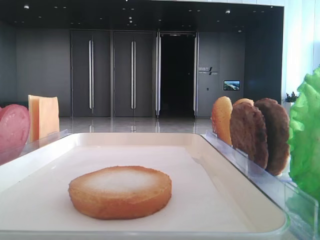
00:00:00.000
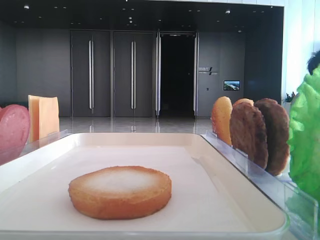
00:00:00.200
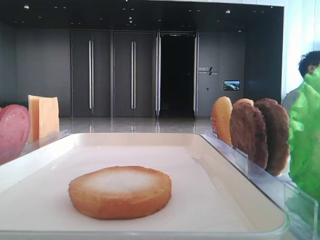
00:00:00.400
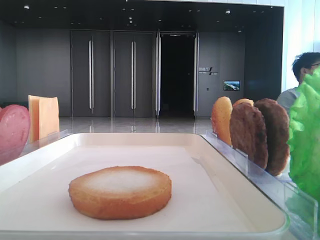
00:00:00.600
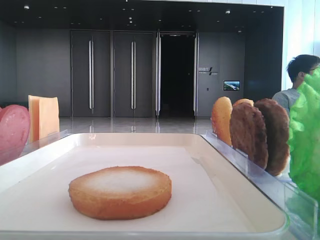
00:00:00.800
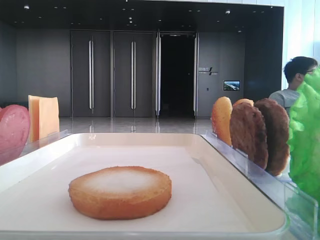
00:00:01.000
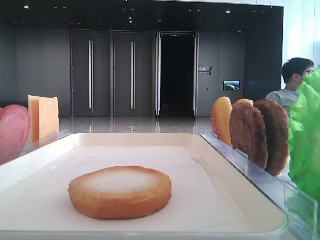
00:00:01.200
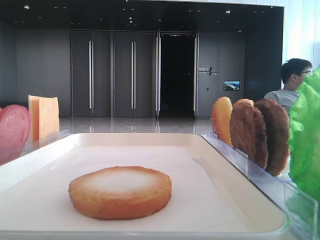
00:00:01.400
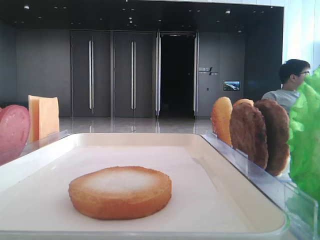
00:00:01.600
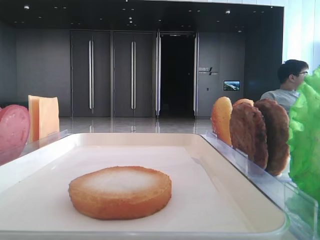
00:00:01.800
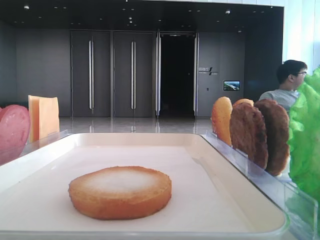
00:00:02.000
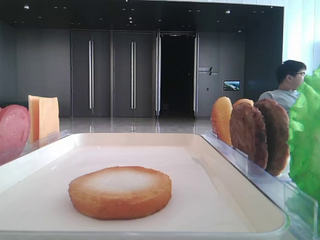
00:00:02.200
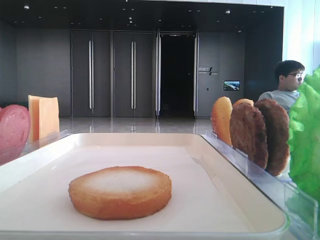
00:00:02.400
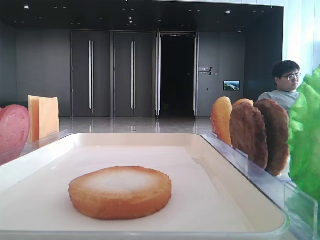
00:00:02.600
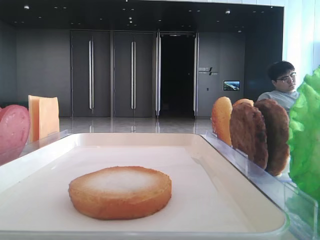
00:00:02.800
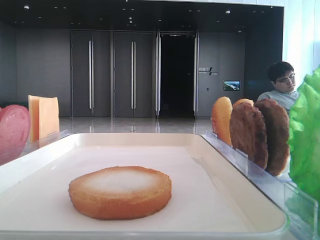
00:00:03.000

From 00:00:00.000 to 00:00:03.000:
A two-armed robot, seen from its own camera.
From 00:00:01.600 to 00:00:03.000: Both grippers stay put.

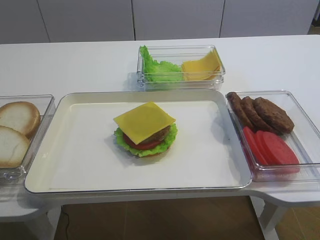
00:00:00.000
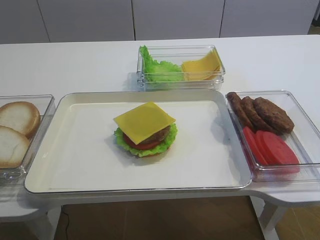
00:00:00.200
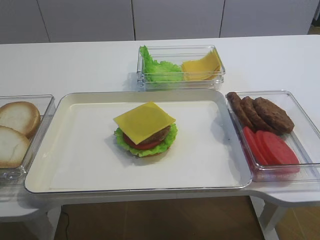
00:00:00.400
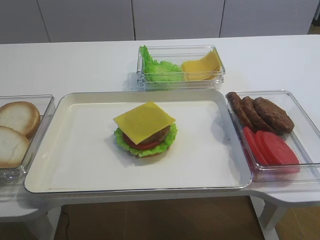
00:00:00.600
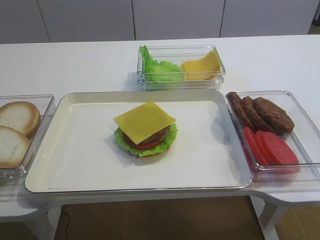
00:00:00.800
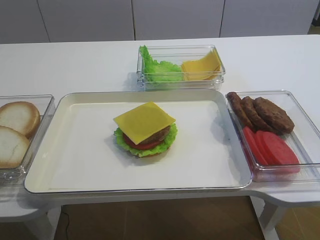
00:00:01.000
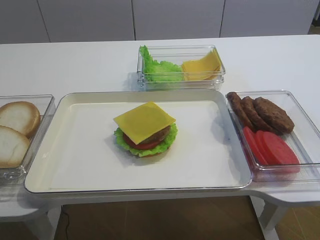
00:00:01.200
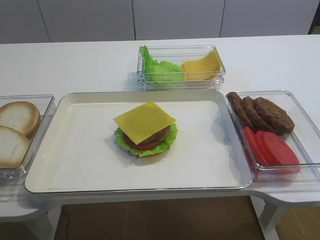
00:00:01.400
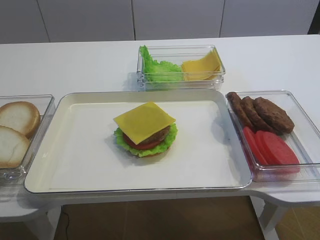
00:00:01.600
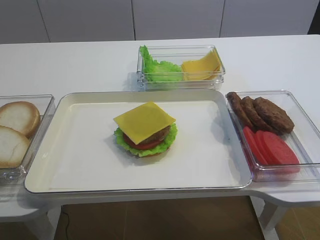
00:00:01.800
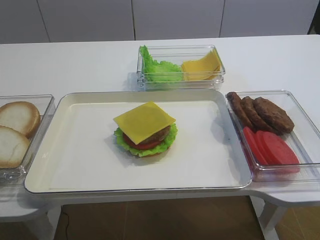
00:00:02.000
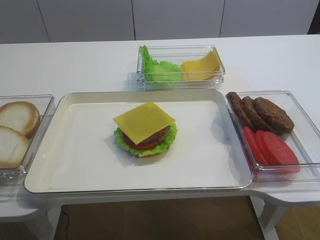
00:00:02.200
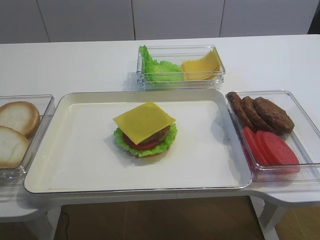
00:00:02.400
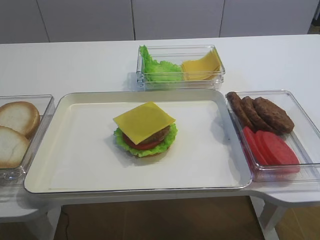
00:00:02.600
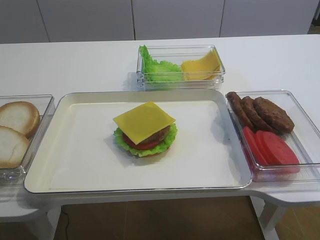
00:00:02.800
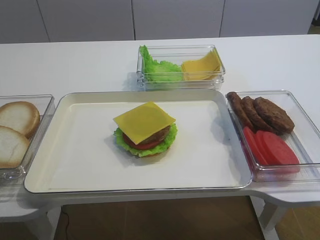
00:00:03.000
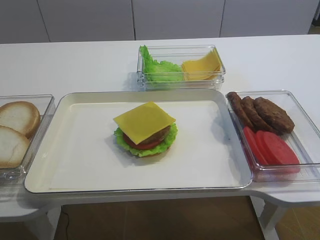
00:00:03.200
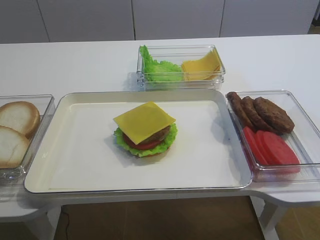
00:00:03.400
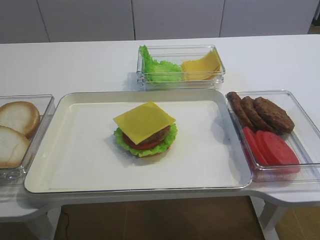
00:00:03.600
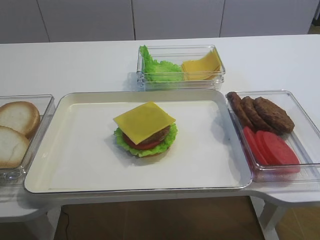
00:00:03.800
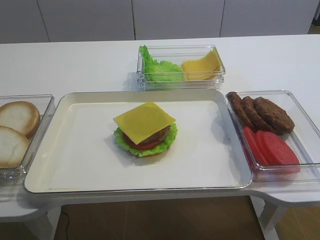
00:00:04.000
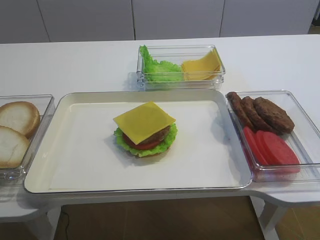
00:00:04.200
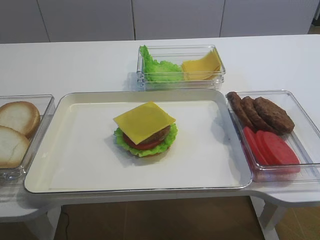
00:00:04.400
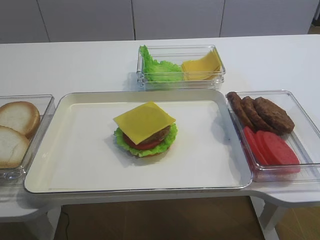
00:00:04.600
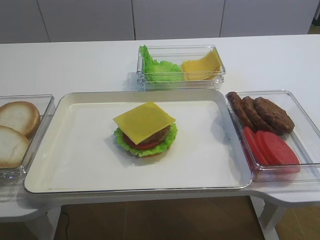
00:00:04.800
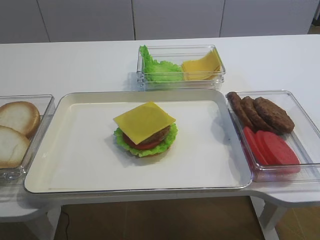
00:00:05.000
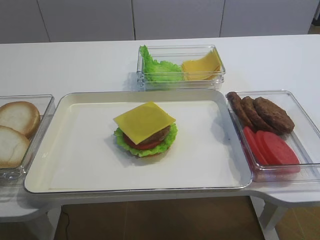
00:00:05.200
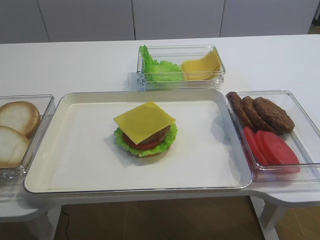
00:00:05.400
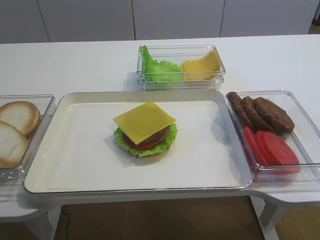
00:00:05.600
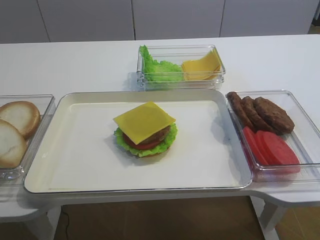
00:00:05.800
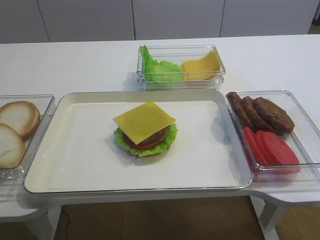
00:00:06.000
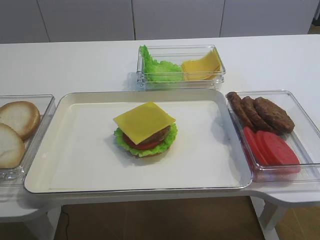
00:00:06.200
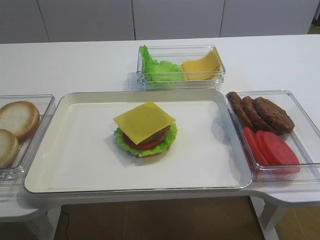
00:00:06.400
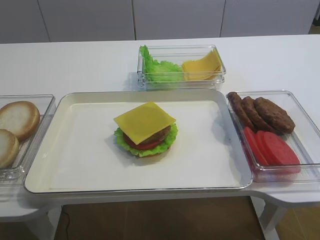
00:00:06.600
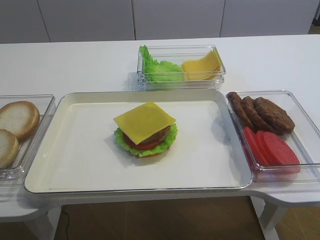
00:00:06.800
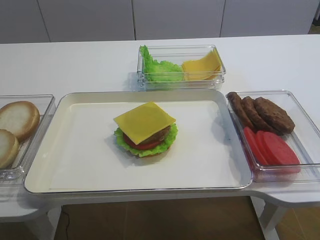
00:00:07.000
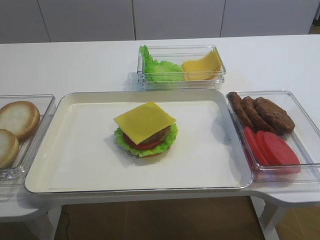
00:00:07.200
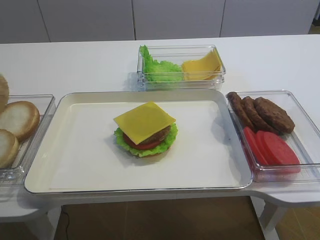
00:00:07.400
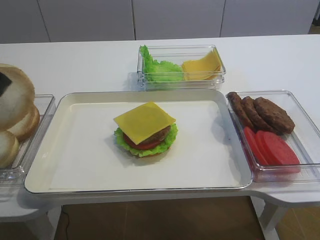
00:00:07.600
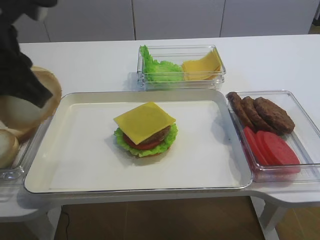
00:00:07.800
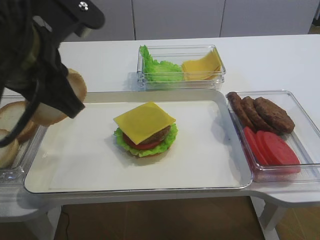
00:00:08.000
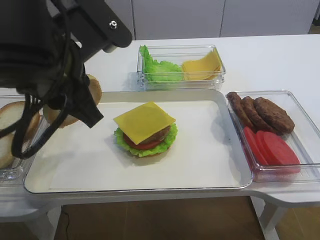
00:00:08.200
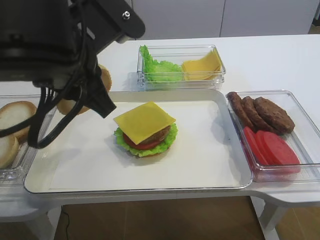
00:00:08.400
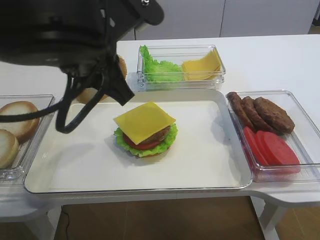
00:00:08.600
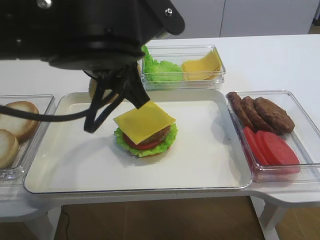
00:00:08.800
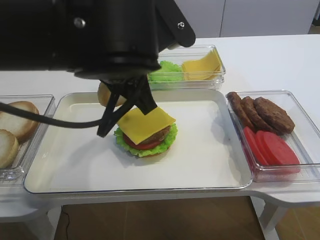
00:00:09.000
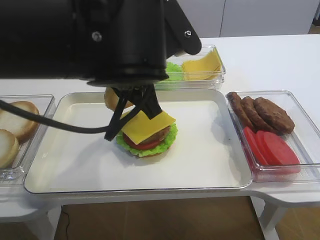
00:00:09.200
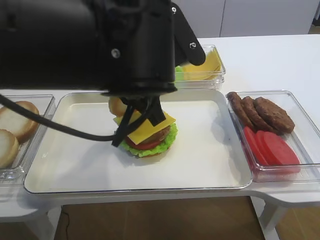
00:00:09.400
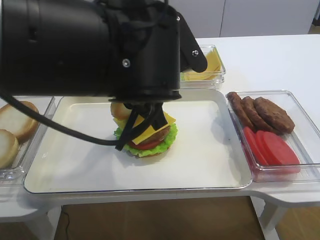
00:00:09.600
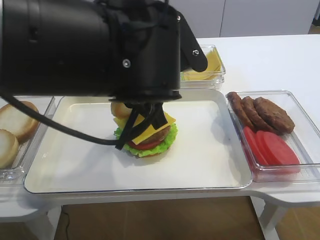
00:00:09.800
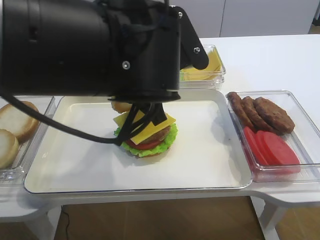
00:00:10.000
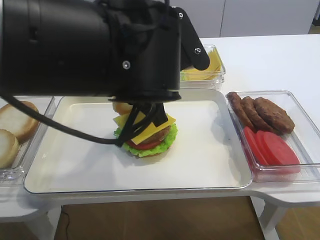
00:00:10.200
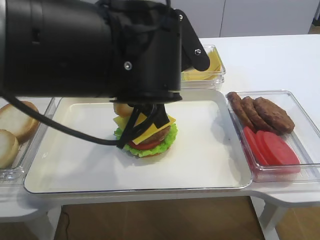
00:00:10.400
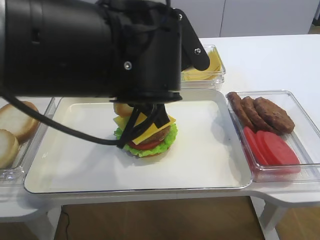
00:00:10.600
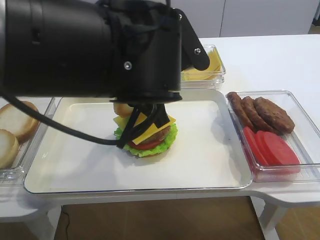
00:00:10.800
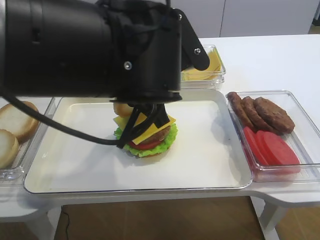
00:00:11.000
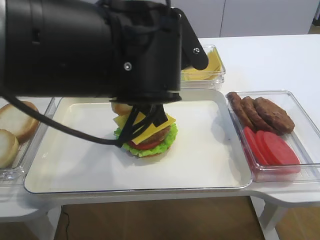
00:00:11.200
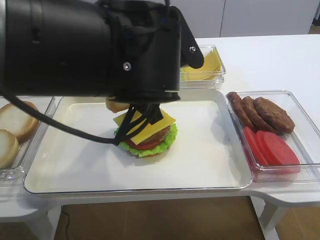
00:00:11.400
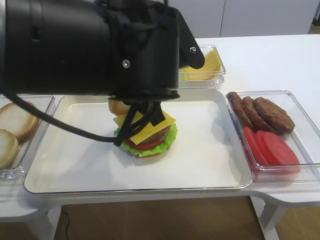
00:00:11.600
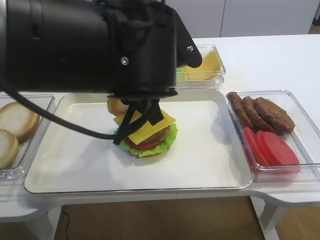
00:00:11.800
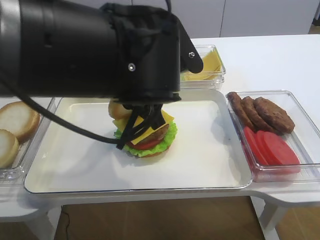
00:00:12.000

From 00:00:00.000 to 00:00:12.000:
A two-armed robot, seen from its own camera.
From 00:00:06.000 to 00:00:07.600: The left gripper is displaced to the right and upward by some 15 cm.
From 00:00:07.600 to 00:00:09.000: The left gripper moves to the right, approximately 15 cm.
From 00:00:09.000 to 00:00:10.400: The grippers stay close to where they were, moving slightly.
From 00:00:10.400 to 00:00:12.000: Both grippers stay put.

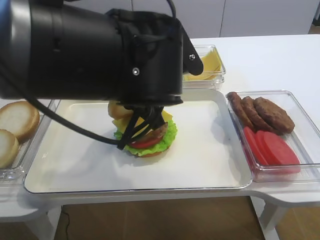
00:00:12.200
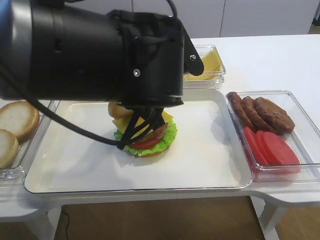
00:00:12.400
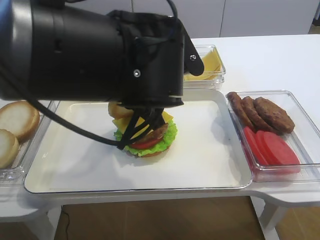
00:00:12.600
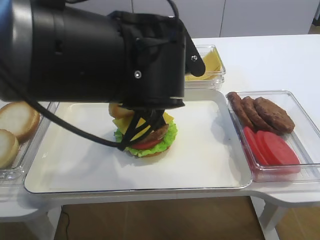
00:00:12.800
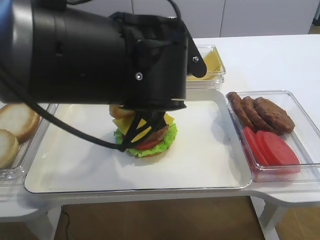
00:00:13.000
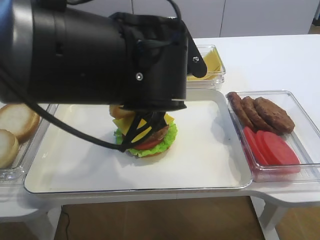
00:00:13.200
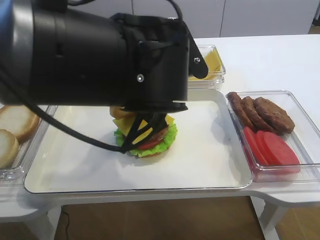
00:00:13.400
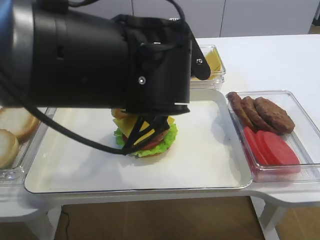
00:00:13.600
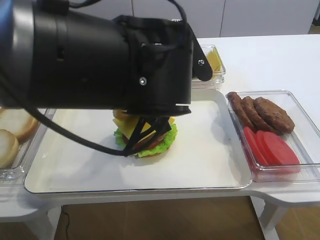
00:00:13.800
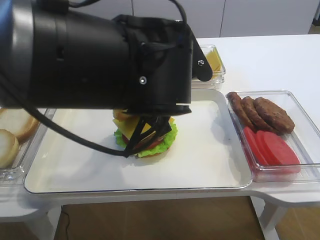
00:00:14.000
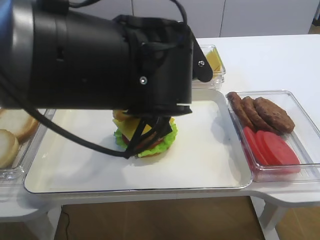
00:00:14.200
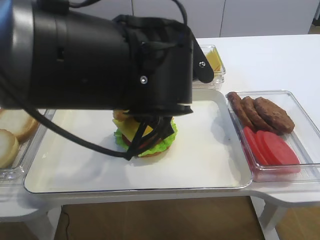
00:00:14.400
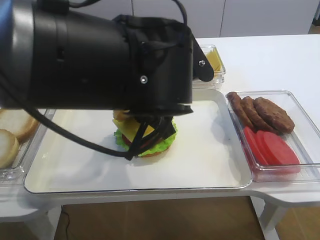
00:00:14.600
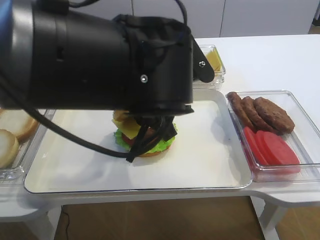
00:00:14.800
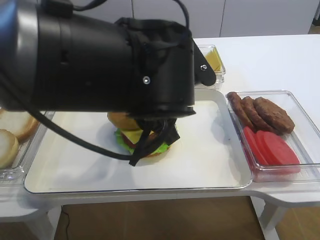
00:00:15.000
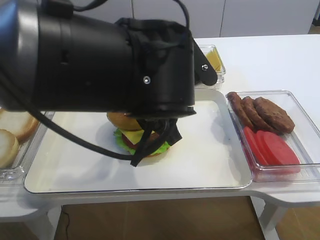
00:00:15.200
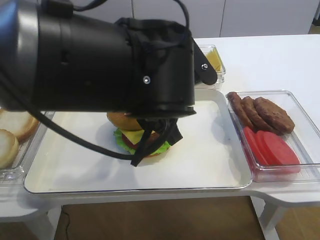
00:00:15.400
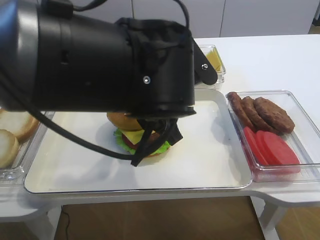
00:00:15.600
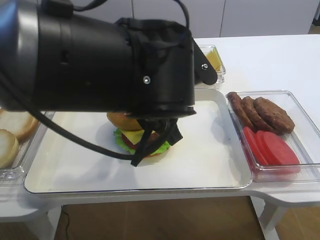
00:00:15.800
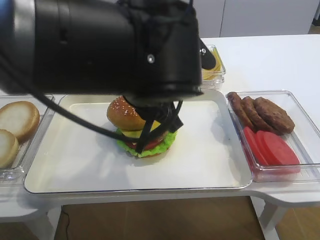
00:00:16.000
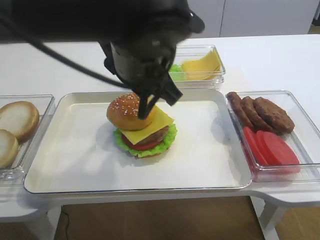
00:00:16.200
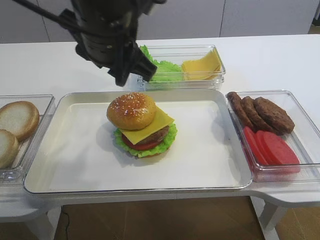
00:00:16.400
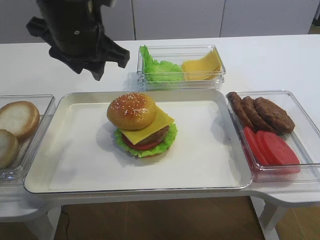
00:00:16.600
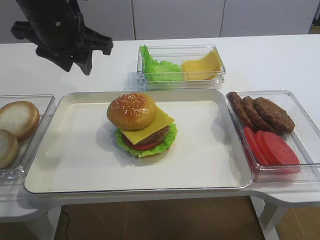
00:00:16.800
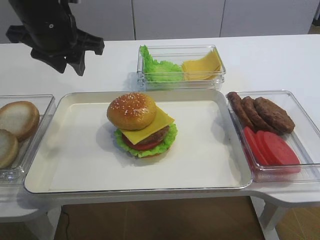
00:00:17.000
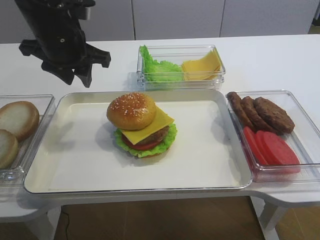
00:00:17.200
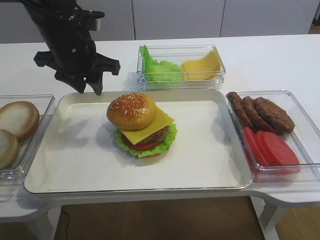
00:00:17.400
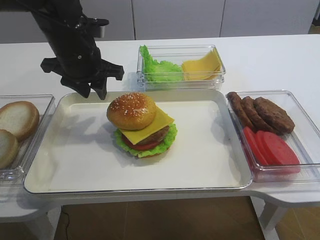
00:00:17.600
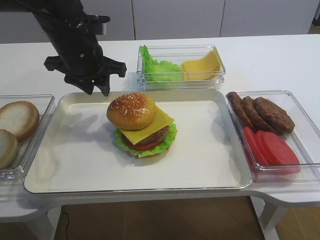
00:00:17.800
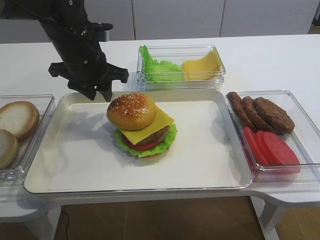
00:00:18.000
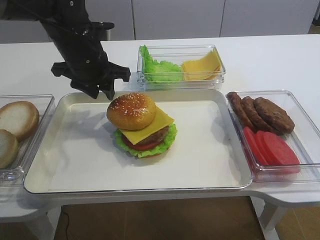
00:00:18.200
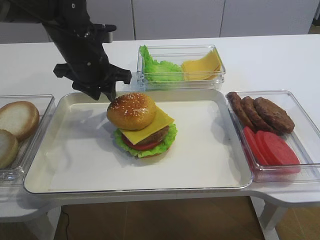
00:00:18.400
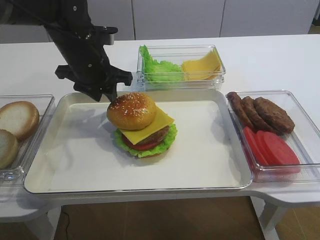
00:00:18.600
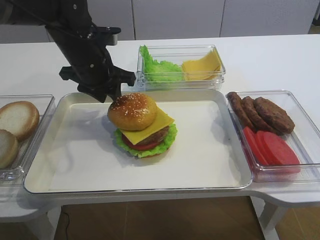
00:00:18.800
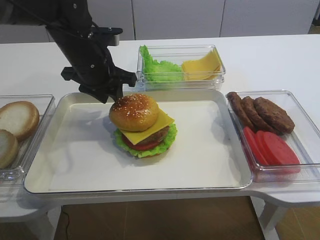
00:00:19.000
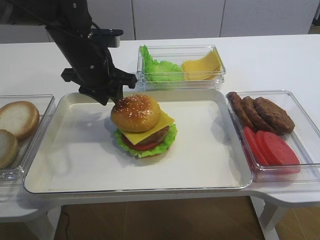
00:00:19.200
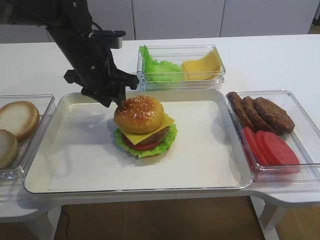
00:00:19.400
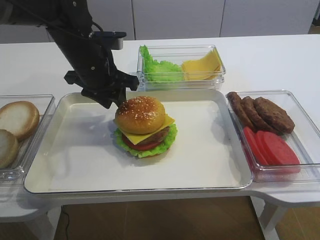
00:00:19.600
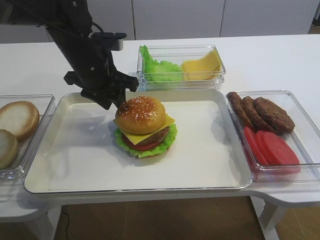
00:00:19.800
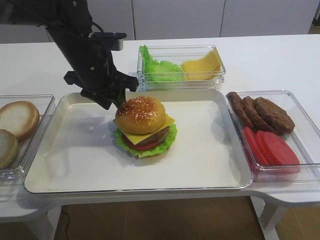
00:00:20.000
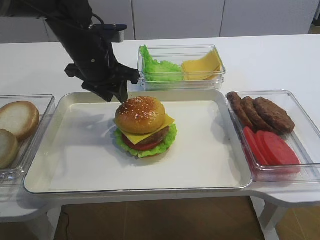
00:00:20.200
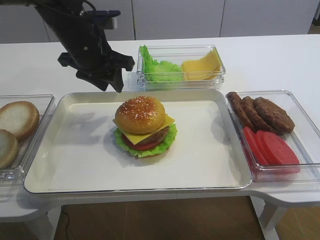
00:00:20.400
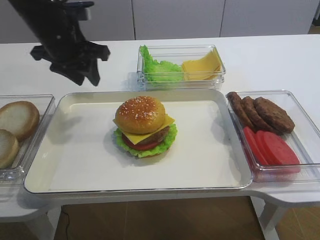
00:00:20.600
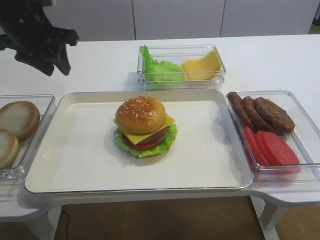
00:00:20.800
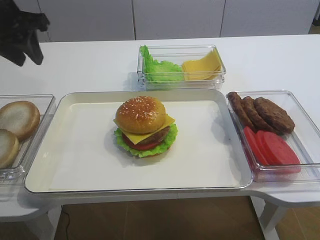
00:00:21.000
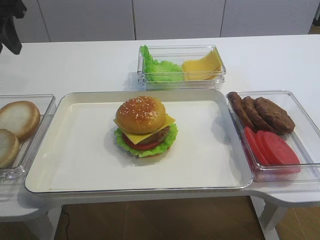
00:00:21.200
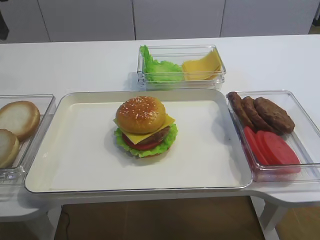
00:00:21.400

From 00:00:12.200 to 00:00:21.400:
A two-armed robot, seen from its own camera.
Step, from 00:00:12.200 to 00:00:20.200: Place the hamburger lid on the cheese slice with the left gripper.
From 00:00:12.200 to 00:00:13.800: Neither gripper changes place.
From 00:00:13.800 to 00:00:15.200: The left gripper opens its fingers.
From 00:00:15.200 to 00:00:16.800: The left gripper shifts about 15 cm to the left, forward and upward.
From 00:00:16.800 to 00:00:18.400: The left gripper moves downward and forward, some 10 cm.
From 00:00:18.400 to 00:00:19.800: The grippers make only small movements.
From 00:00:19.800 to 00:00:21.400: The left gripper is displaced to the left and upward by about 20 cm.
